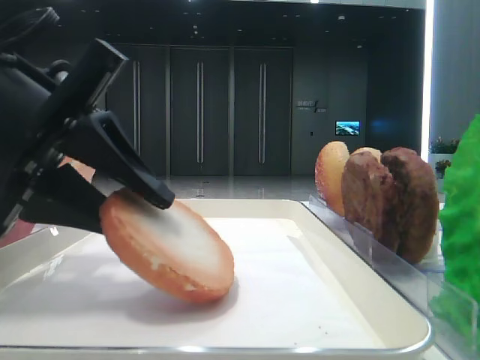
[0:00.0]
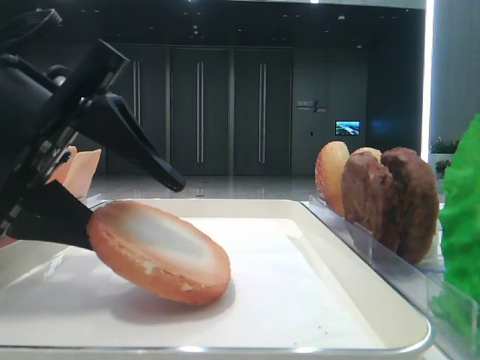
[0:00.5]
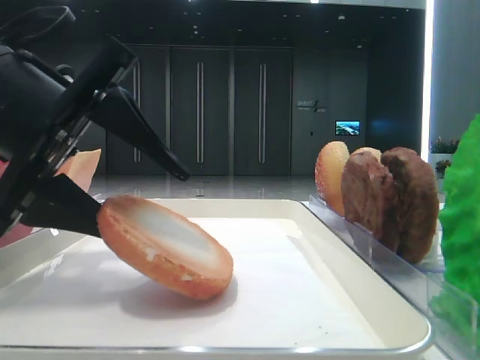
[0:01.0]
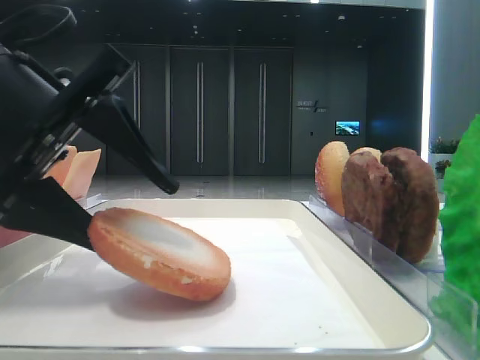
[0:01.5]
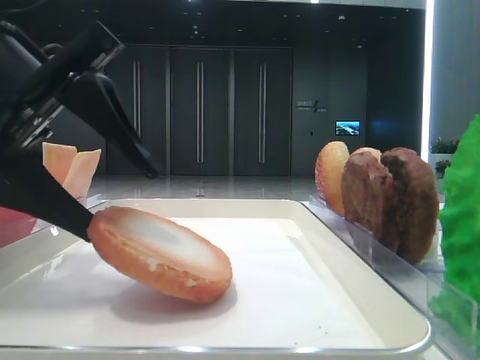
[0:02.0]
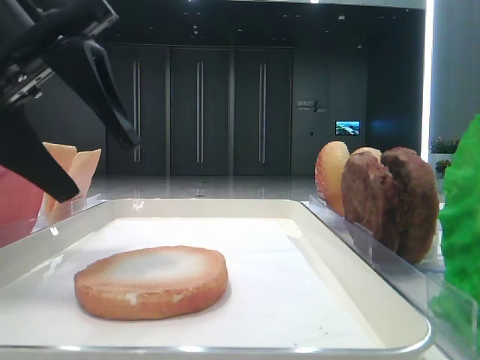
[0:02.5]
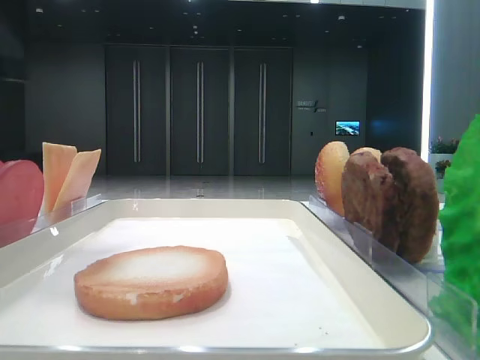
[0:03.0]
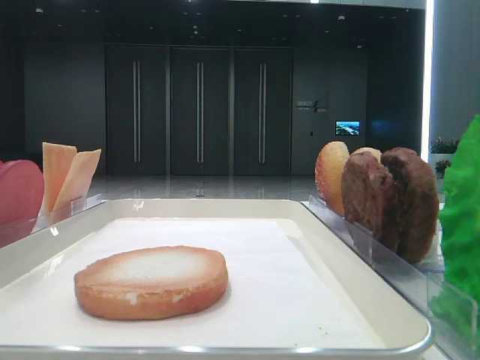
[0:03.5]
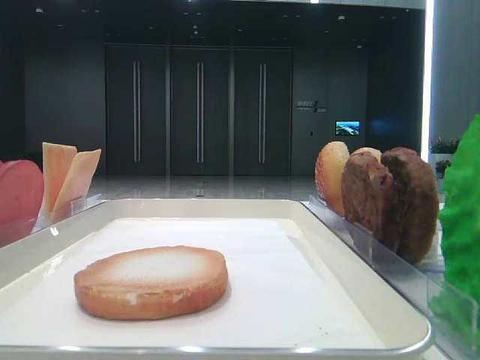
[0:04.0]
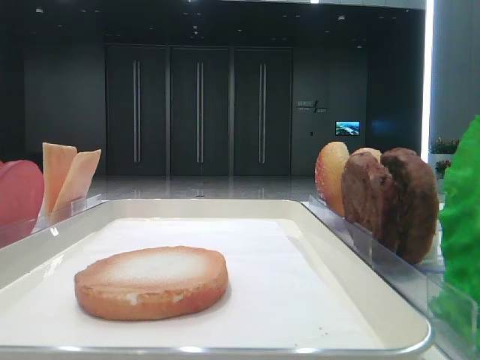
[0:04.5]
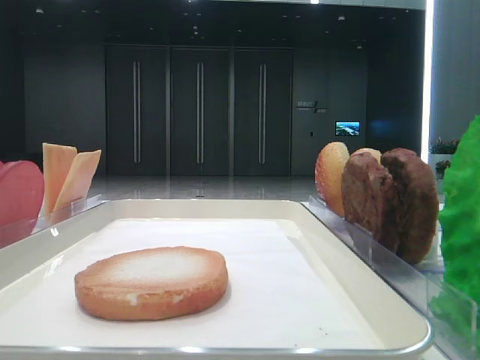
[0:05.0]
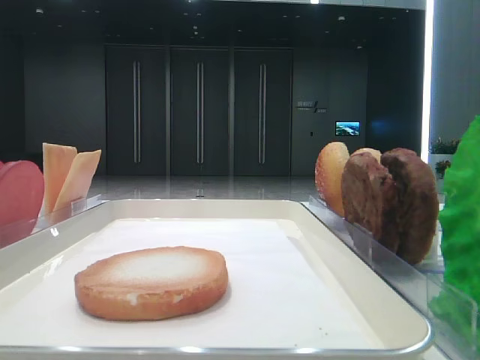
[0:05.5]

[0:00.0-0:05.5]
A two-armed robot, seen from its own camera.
Step, 0:00.0 to 0:02.0: Place the bread on the tray with the left hand.
0:00.0 to 0:02.0: The left gripper opens.
0:02.0 to 0:03.5: The left gripper shifts approximately 20 cm upward and to the left.

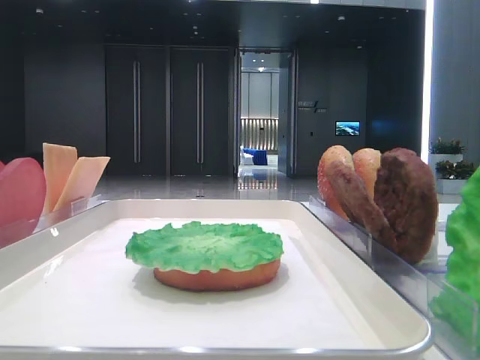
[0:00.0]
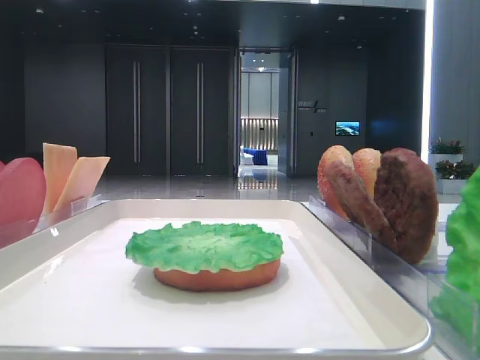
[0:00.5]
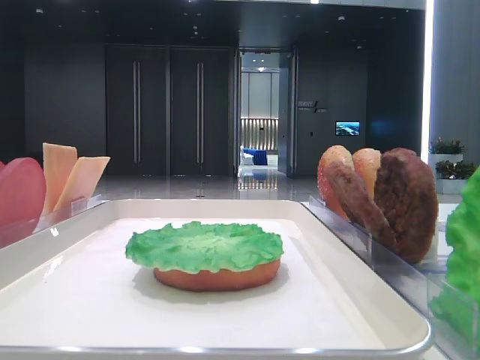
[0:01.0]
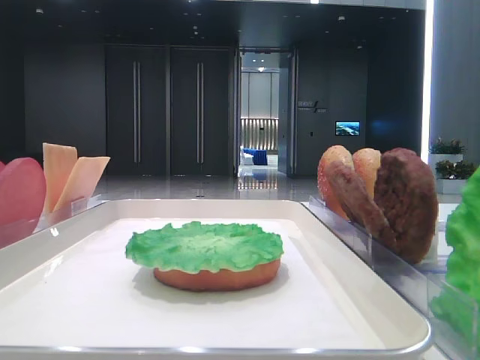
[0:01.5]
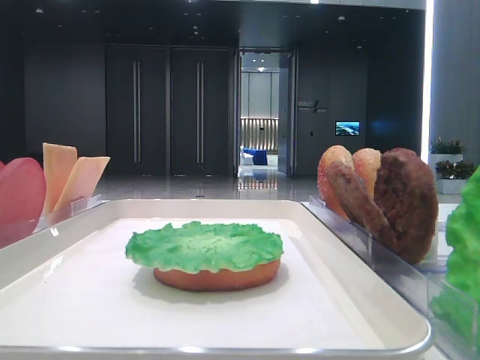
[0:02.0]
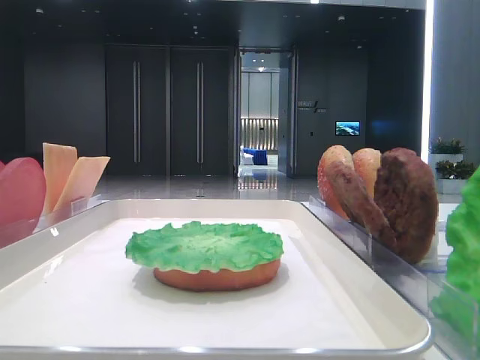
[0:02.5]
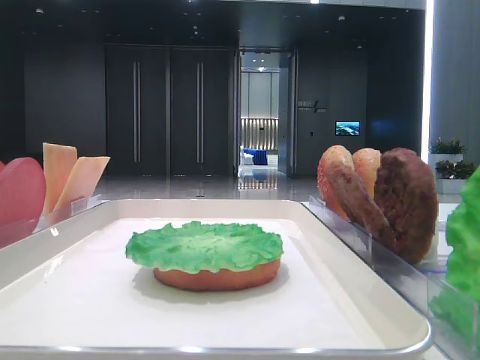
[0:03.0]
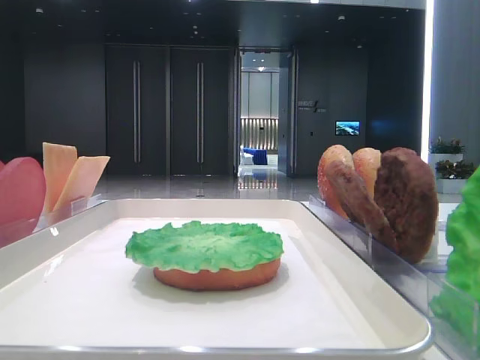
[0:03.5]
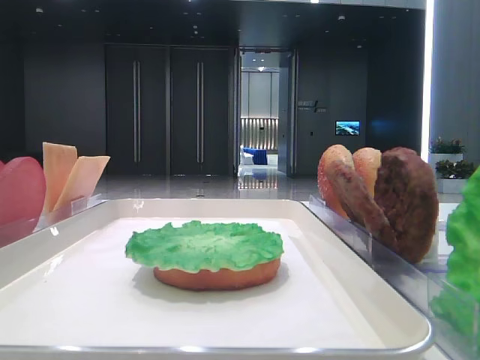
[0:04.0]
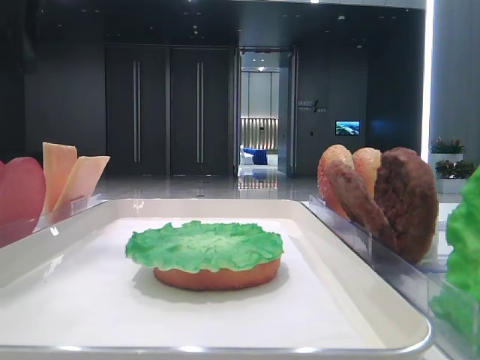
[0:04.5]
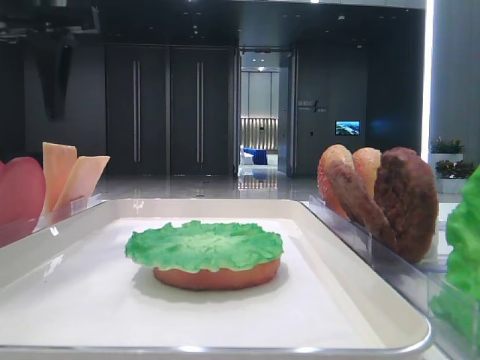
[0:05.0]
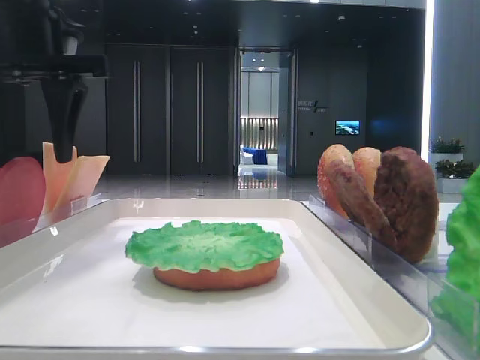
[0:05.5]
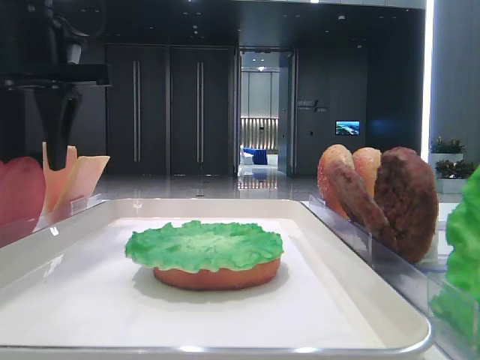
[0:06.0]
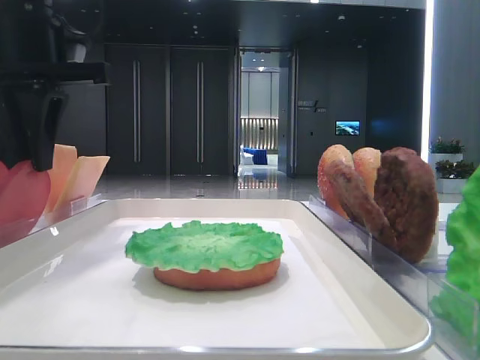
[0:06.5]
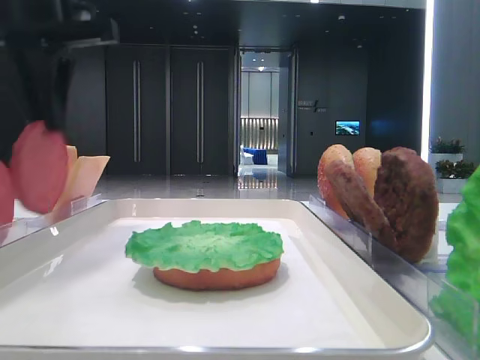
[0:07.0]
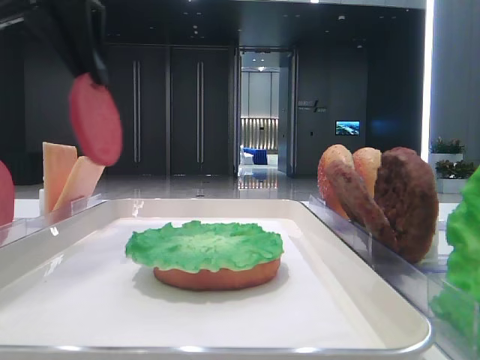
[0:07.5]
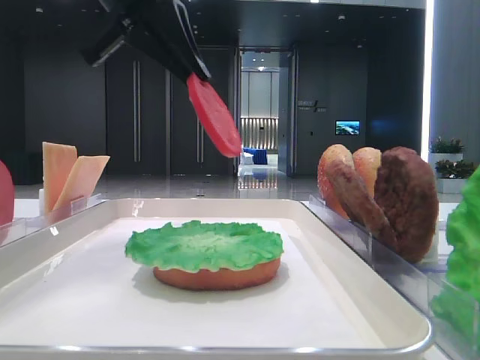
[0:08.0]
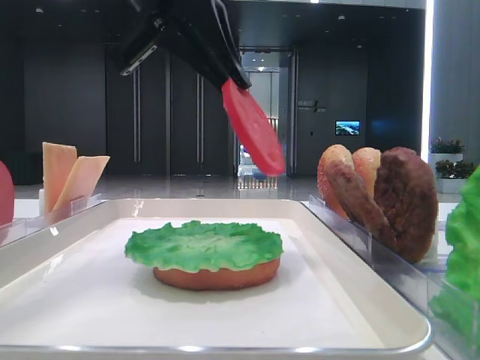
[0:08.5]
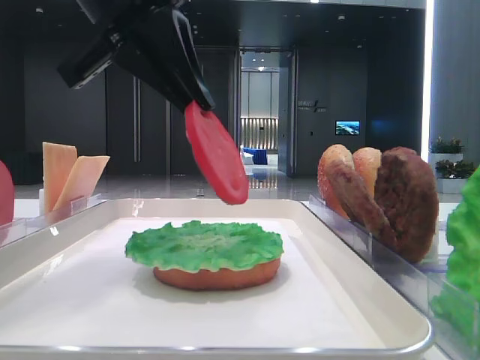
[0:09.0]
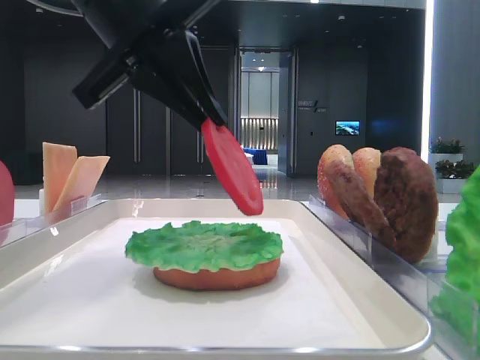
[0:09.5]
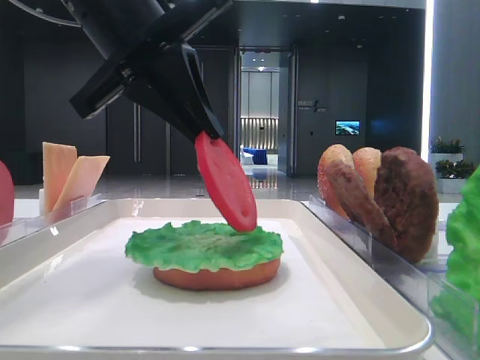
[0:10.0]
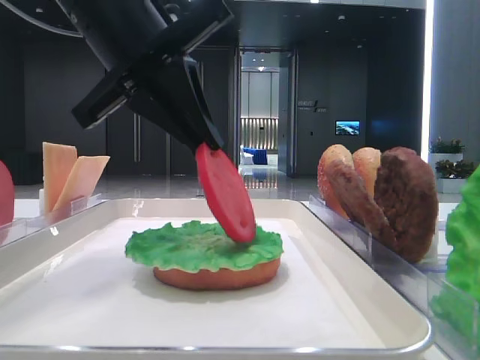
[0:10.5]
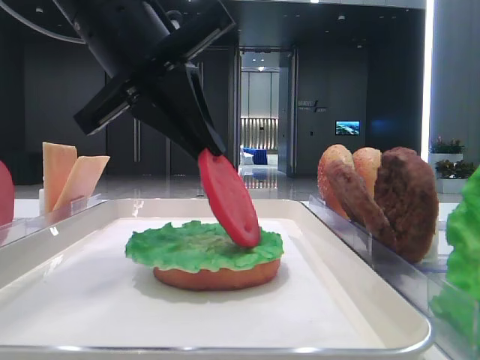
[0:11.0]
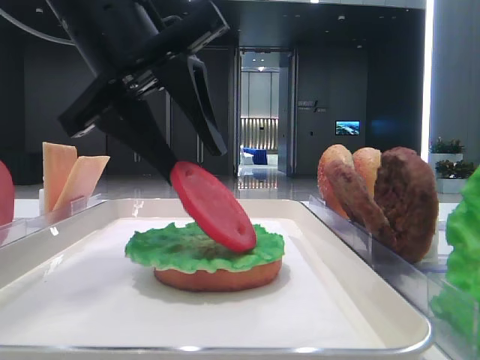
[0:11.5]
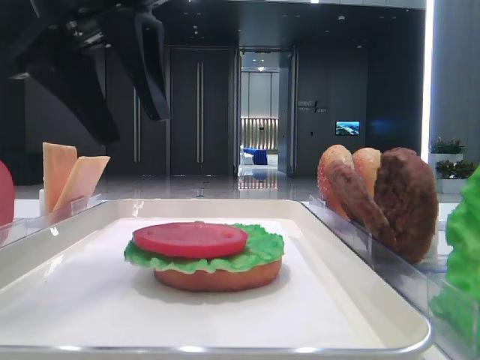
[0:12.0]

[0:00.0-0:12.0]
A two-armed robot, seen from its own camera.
Step, 0:00.0 to 0:06.0: Pick up the tomato slice with the left hand.
Step, 0:06.5 to 0:11.5: Place the tomato slice on the lettuce leaf with the left hand.
0:04.0 to 0:06.0: The left gripper travels to the right and downward by some 15 cm.
0:06.0 to 0:08.0: The left gripper travels to the right and upward by approximately 10 cm, and closes its fingers.
0:08.0 to 0:10.0: The left gripper travels downward by approximately 5 cm.
0:10.0 to 0:12.0: The left gripper opens its fingers.

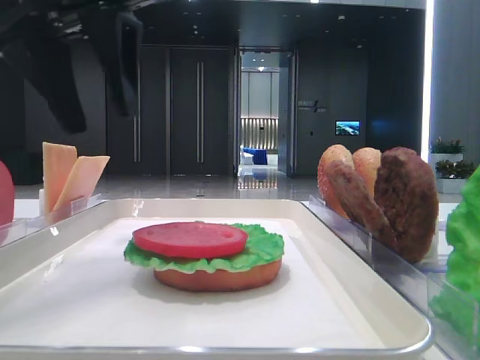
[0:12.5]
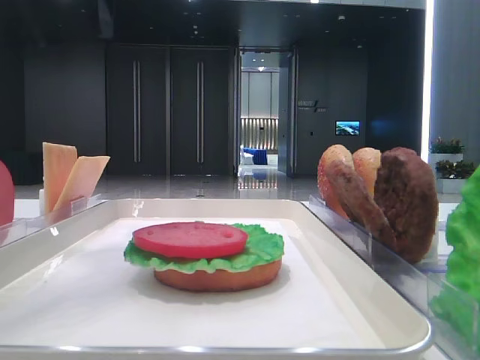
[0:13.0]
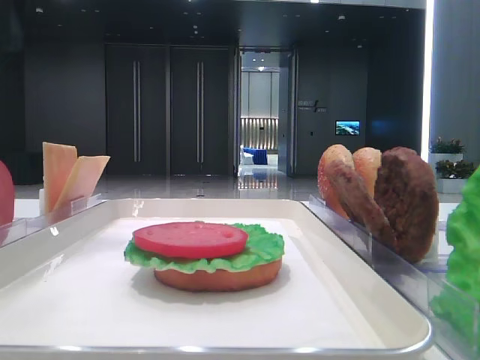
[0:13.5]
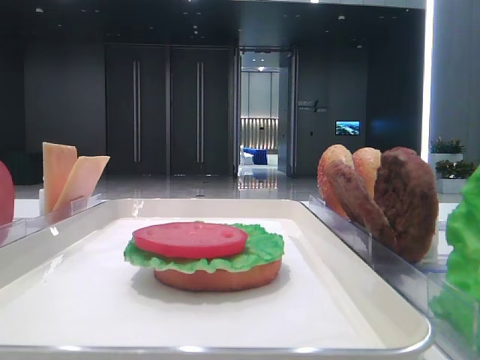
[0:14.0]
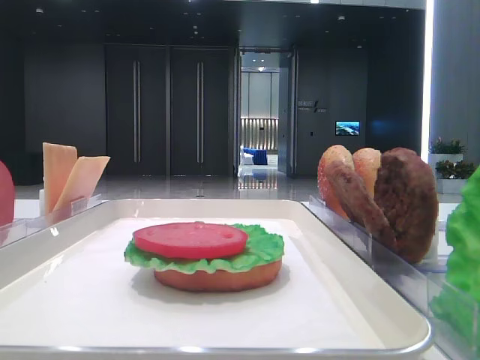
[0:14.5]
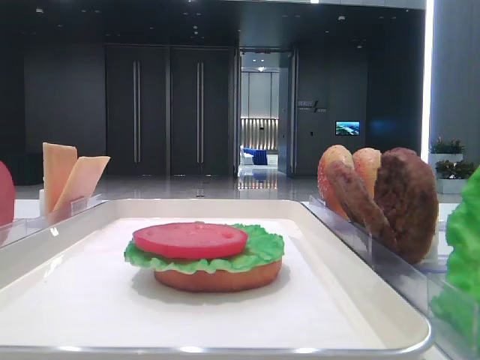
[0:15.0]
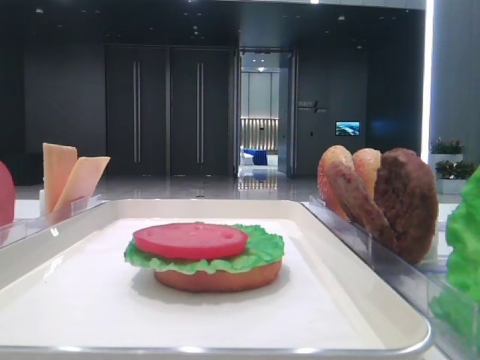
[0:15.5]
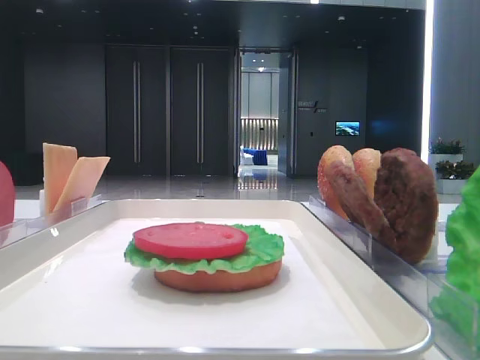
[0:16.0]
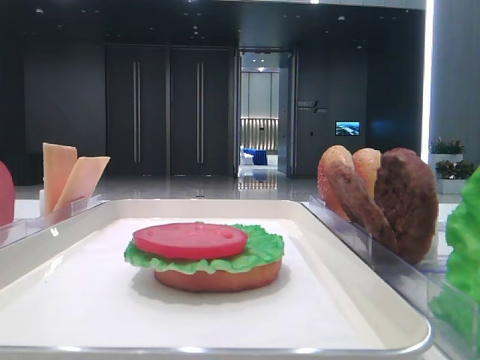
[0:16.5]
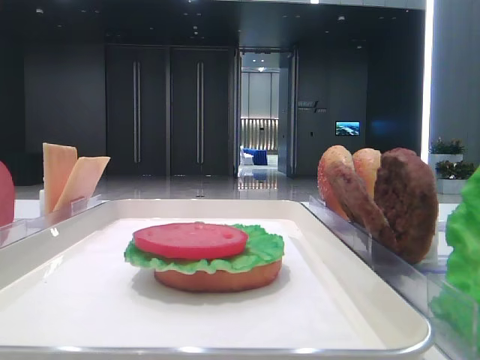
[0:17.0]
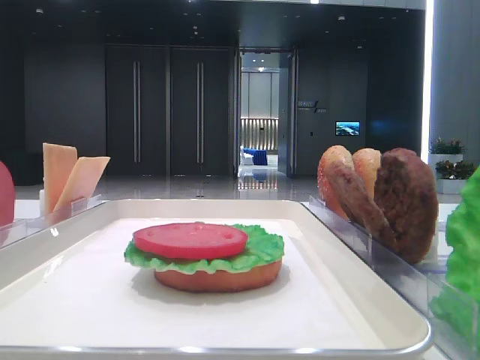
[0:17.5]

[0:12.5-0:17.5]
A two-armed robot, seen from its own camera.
0:12.5 to 0:15.0: The left gripper moves backward and to the left, some 25 cm.

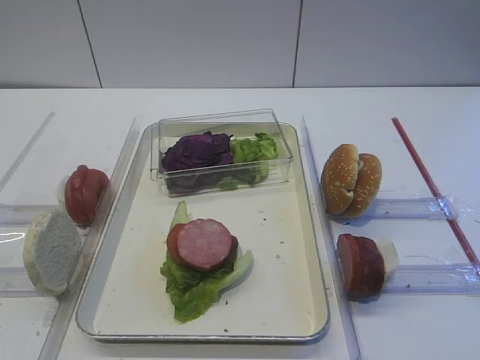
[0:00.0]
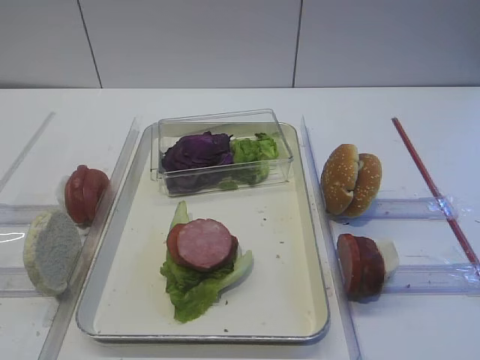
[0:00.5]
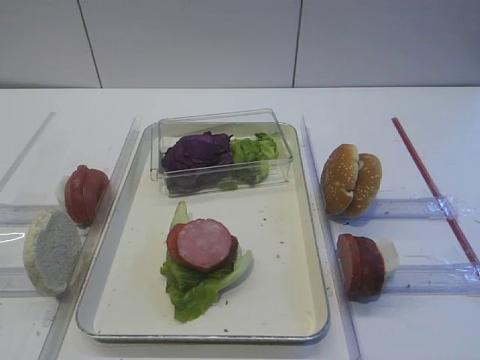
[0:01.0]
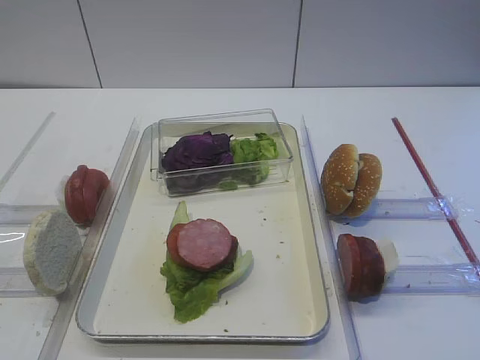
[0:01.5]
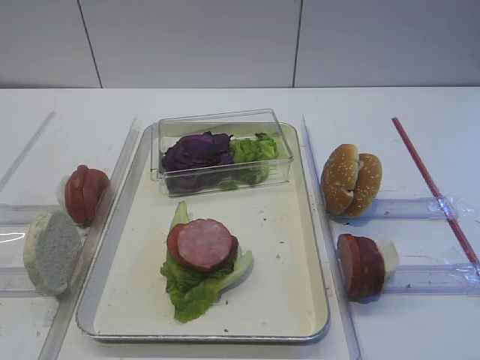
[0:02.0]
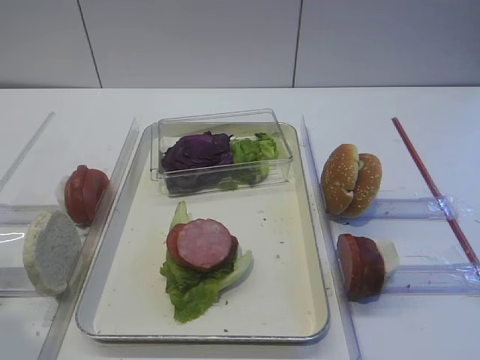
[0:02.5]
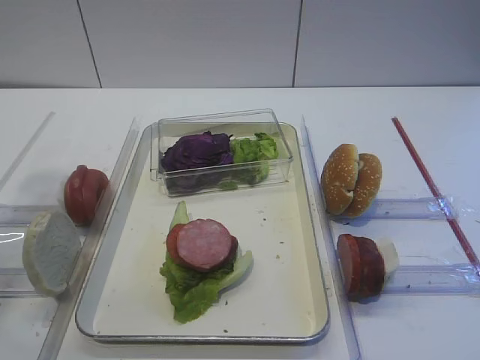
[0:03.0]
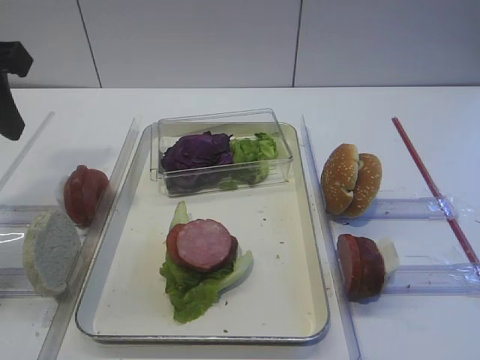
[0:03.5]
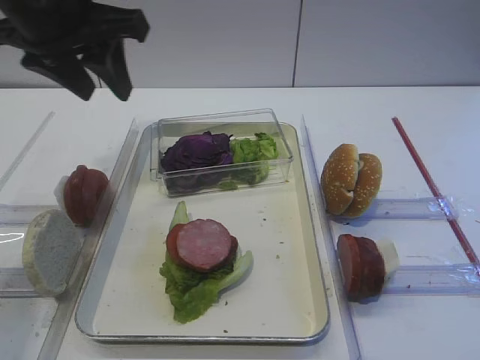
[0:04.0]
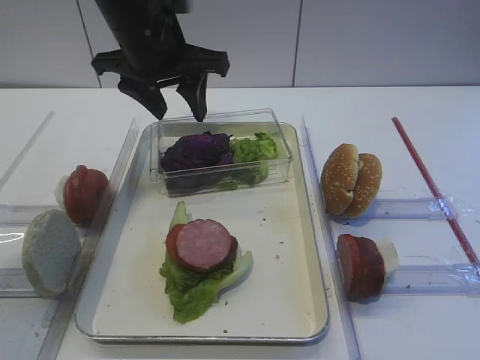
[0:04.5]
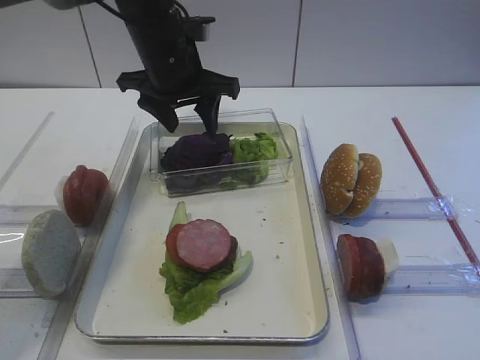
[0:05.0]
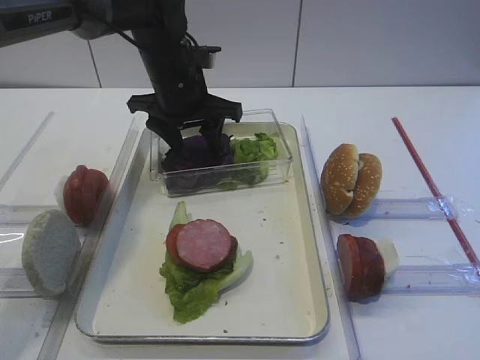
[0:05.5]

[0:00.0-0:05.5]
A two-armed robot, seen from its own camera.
0:02.0 to 0:03.5: The left gripper shifts about 25 cm forward.
0:03.5 to 0:05.5: The left gripper moves forward, to the right and downward, some 30 cm.
